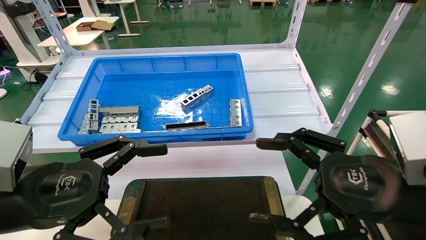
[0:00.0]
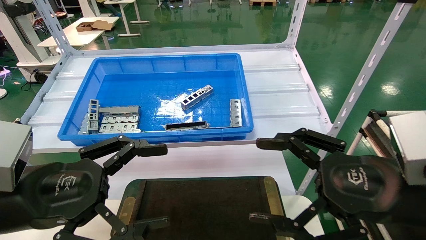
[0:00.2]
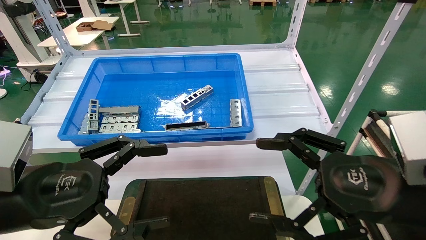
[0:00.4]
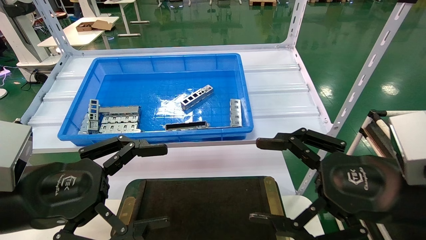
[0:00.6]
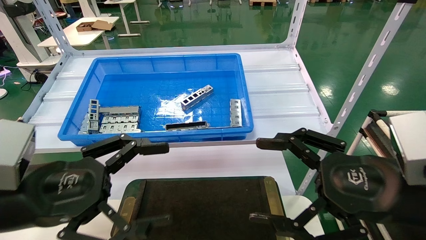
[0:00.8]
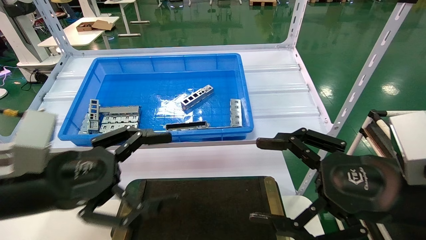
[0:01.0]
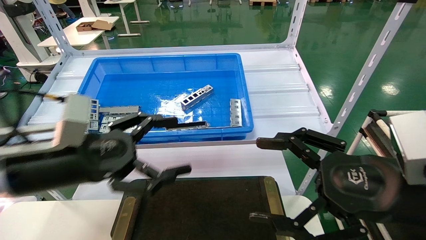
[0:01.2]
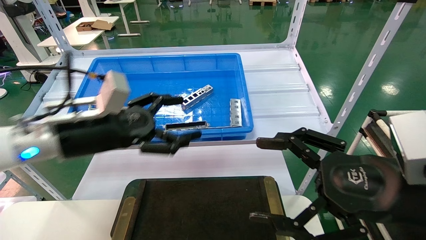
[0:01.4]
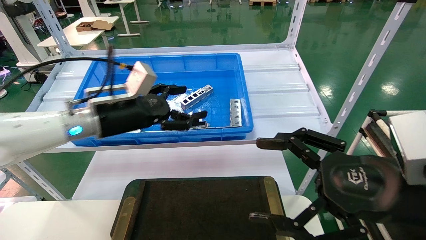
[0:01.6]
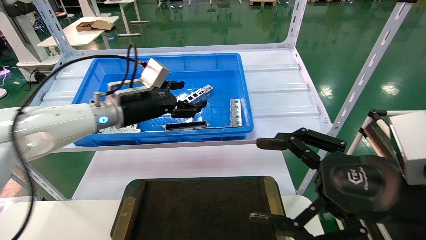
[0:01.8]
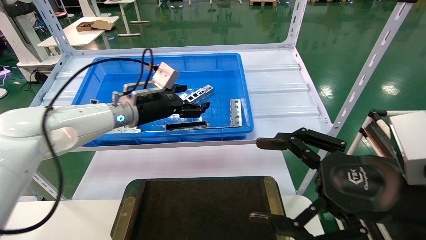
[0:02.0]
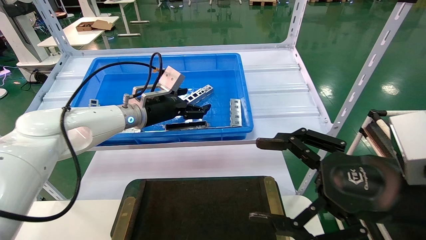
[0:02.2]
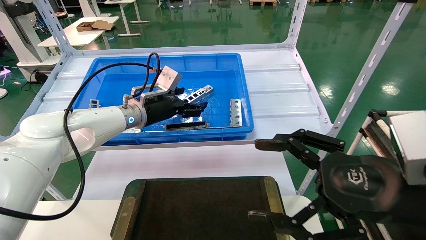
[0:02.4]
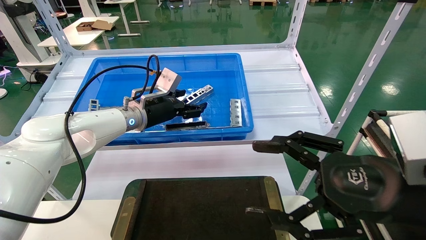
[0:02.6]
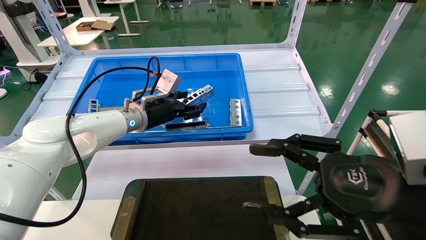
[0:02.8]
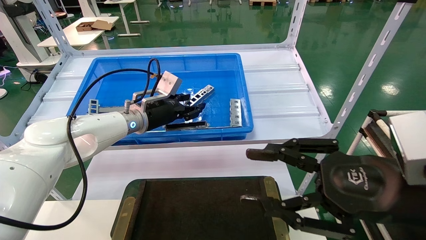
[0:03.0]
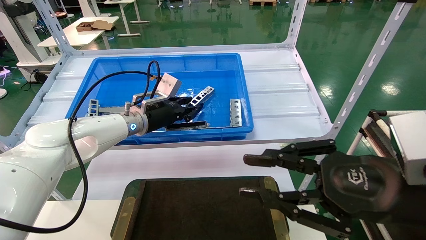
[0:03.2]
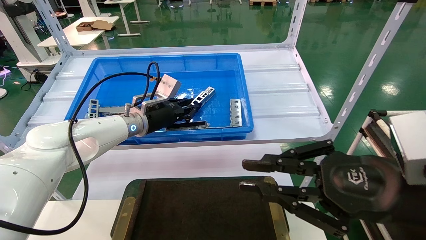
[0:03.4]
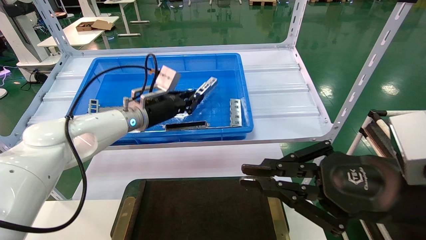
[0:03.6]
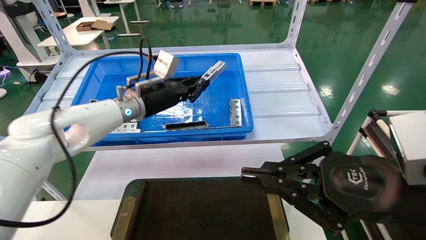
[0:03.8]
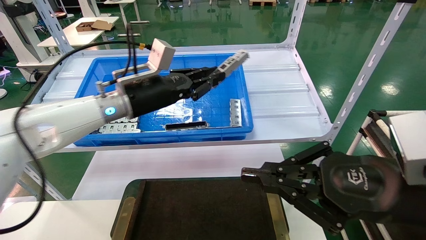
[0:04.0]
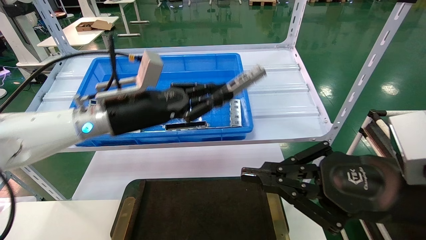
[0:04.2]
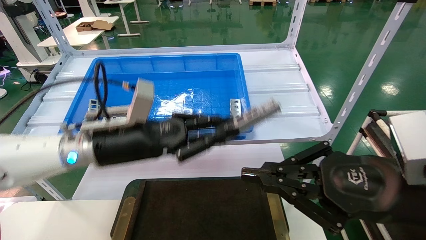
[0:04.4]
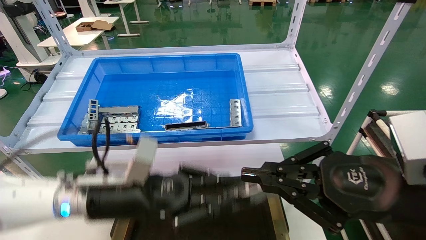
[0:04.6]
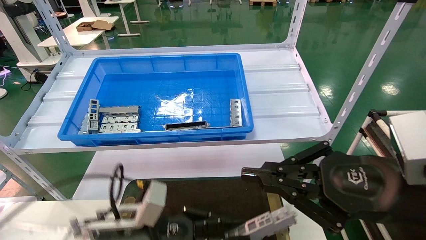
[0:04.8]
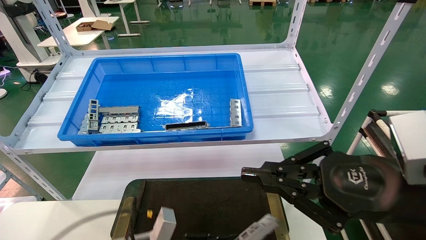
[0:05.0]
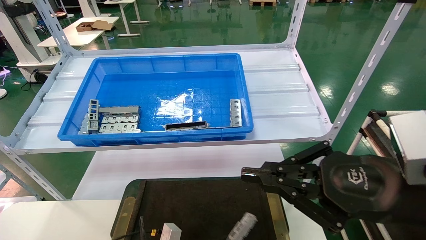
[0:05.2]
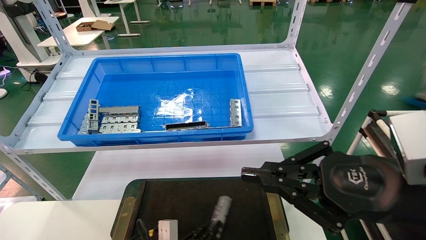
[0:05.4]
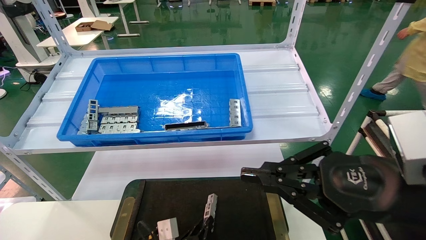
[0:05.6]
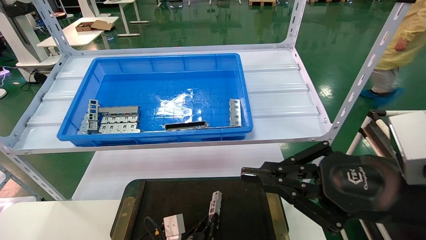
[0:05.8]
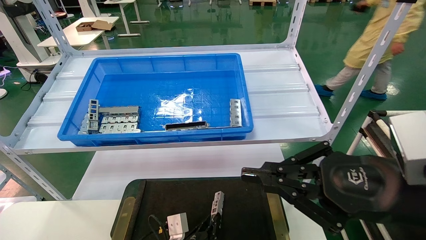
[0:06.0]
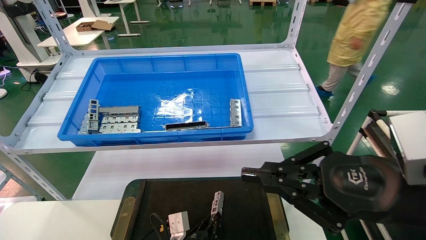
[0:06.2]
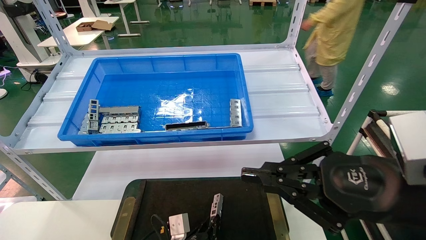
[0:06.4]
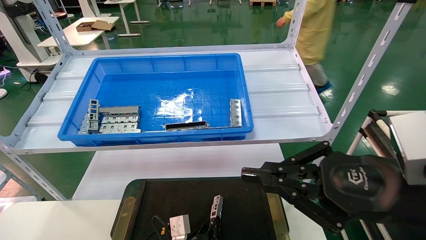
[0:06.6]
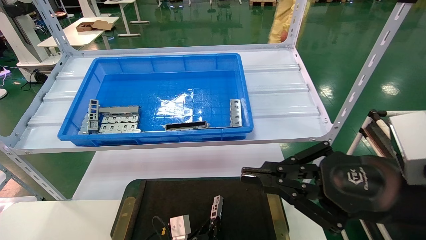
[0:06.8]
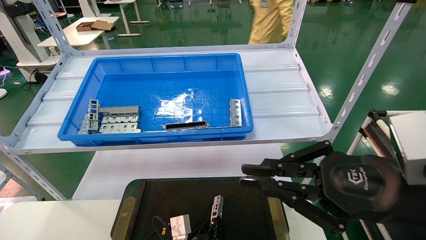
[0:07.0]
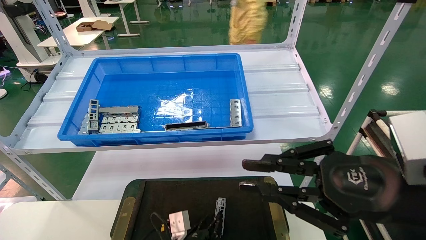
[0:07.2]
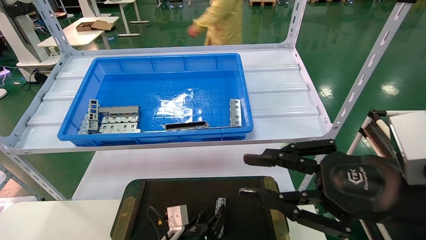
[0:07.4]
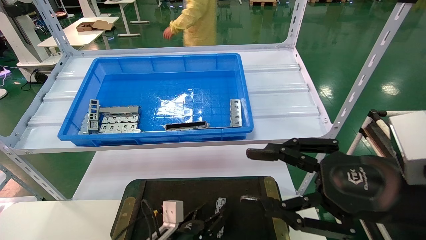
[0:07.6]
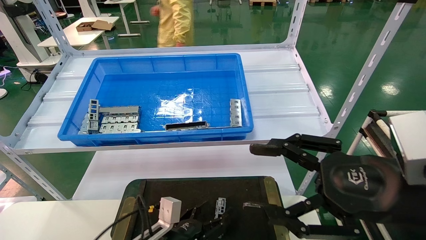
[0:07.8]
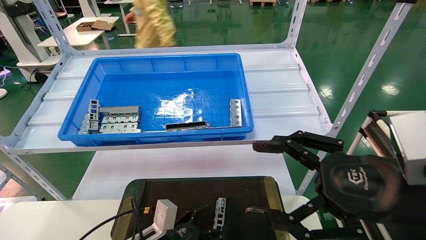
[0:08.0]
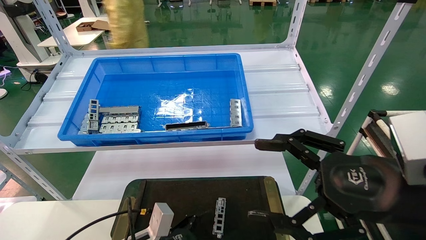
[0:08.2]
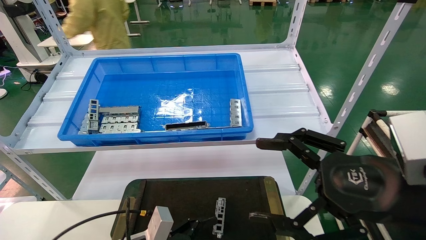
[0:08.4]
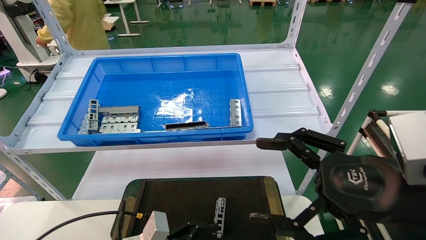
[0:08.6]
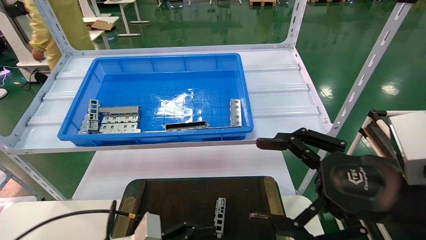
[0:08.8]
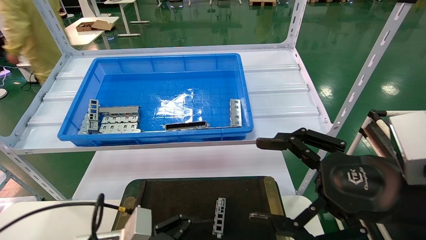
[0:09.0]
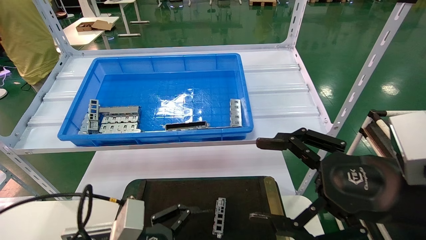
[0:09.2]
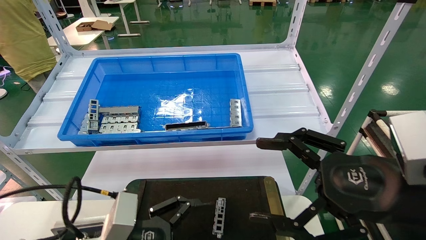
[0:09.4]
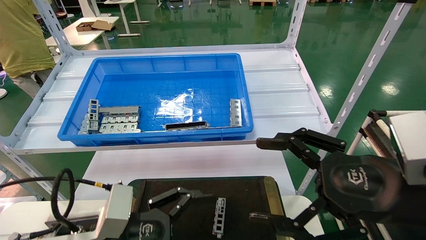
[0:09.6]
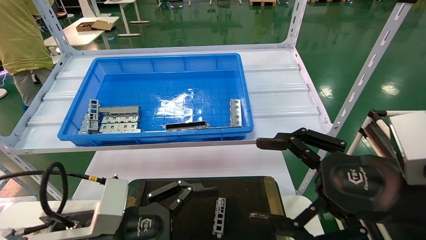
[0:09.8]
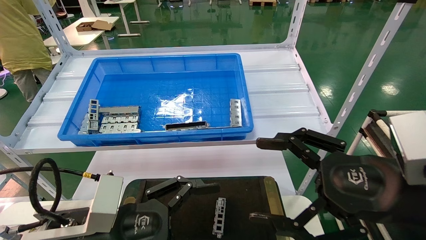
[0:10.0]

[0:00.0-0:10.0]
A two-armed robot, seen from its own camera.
Task of the whole recording: Grasp the part with one hand and place it on the black container.
Step, 0:01.0 to 0:03.8: Pick up the front USB bracket from the feeding area.
Step, 0:04.0 to 0:07.2: Place the front USB bracket into the box.
0:00.0 to 0:01.4: The left gripper goes roughly 15 cm forward.
0:01.4 to 0:02.8: The left gripper moves forward, roughly 15 cm.
0:02.8 to 0:04.2: The right gripper closes its fingers. The left gripper moves backward, approximately 10 cm, and closes its fingers.
0:04.2 to 0:05.8: The left gripper shifts about 35 cm downward.
0:05.8 to 0:07.2: The grippers stay close to where they were, moving slightly.
0:07.2 to 0:08.6: The right gripper opens its fingers. Meanwhile the left gripper travels upward, to the left and backward by roughly 15 cm, and opens up.
0:08.6 to 0:10.0: The left gripper heads upward, covering approximately 10 cm.
